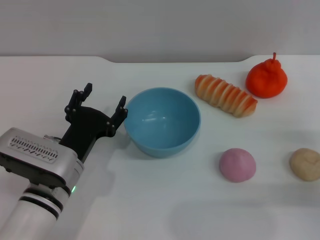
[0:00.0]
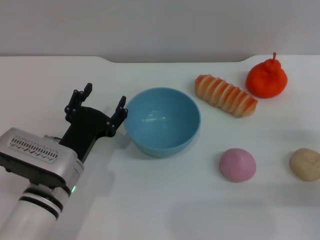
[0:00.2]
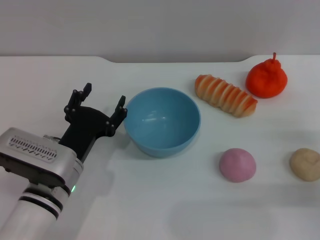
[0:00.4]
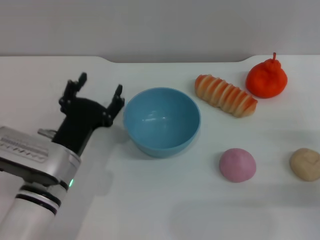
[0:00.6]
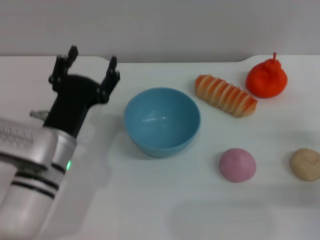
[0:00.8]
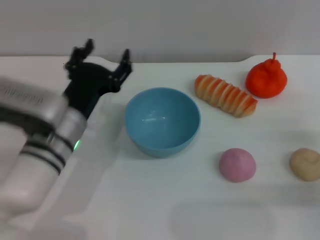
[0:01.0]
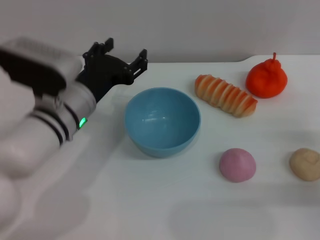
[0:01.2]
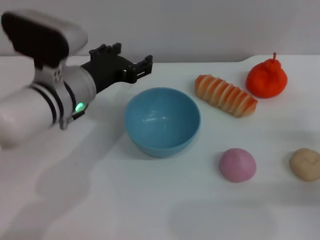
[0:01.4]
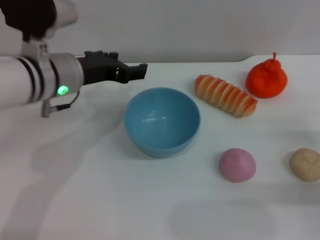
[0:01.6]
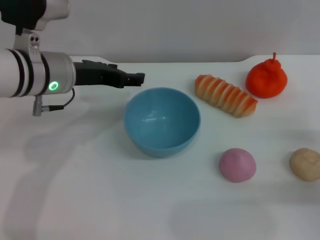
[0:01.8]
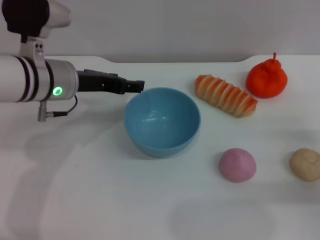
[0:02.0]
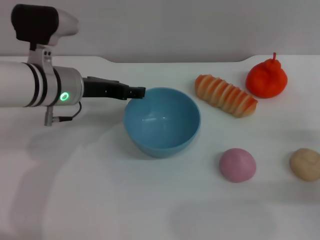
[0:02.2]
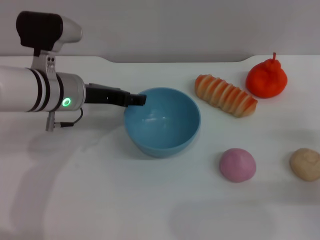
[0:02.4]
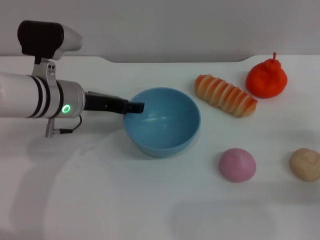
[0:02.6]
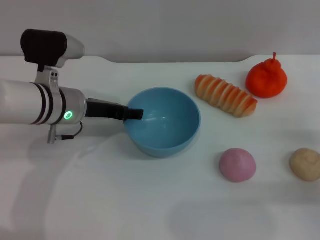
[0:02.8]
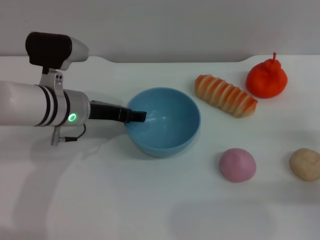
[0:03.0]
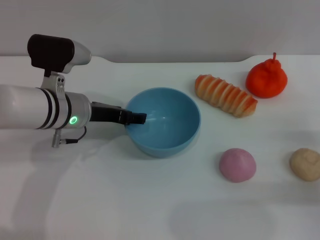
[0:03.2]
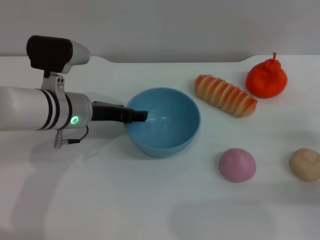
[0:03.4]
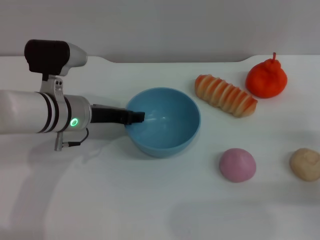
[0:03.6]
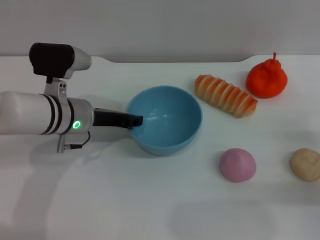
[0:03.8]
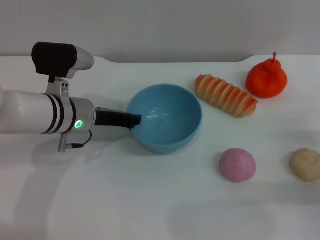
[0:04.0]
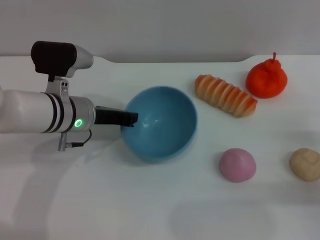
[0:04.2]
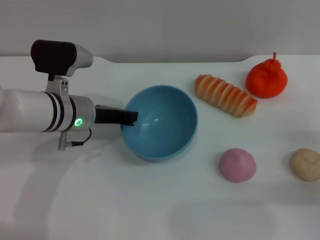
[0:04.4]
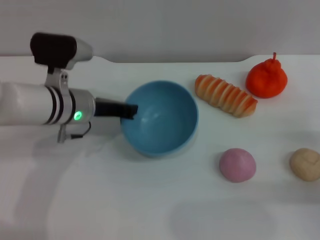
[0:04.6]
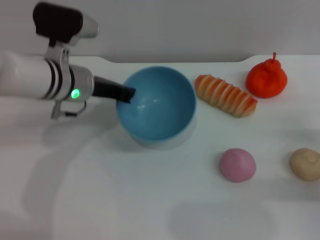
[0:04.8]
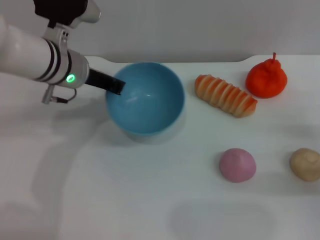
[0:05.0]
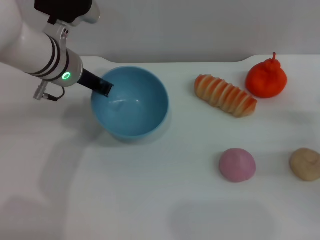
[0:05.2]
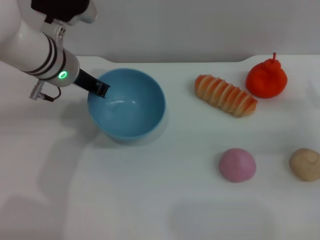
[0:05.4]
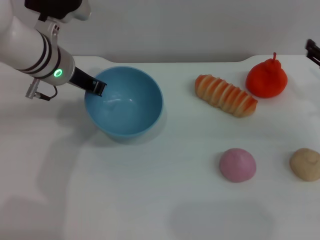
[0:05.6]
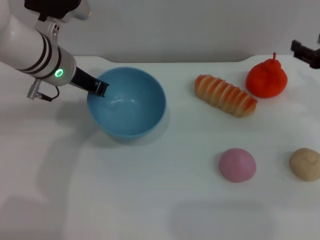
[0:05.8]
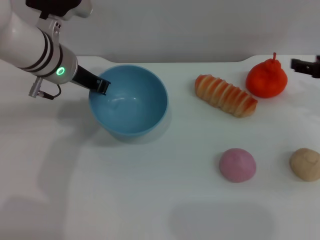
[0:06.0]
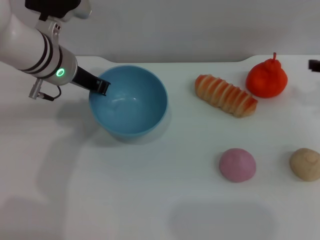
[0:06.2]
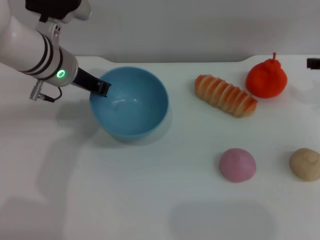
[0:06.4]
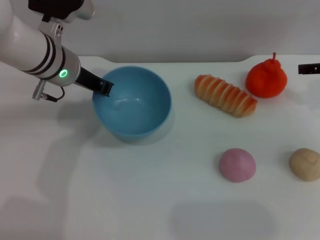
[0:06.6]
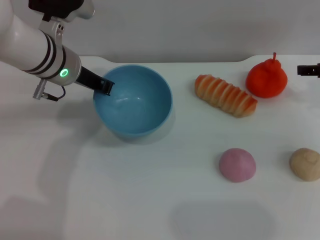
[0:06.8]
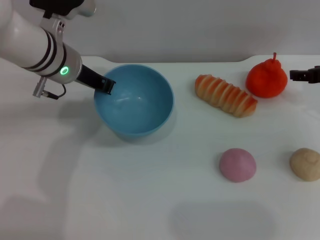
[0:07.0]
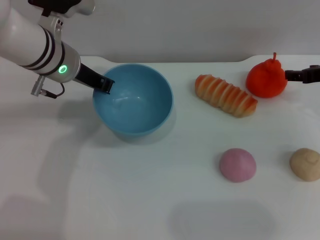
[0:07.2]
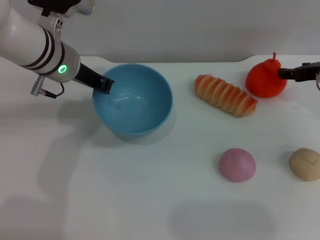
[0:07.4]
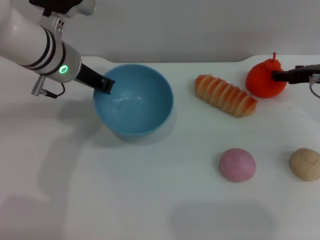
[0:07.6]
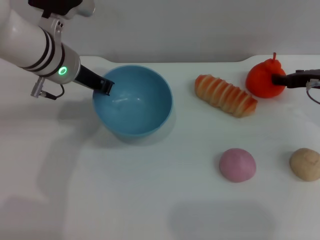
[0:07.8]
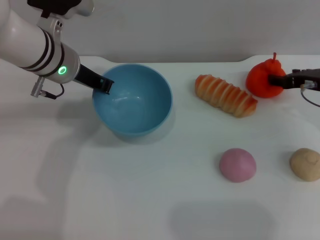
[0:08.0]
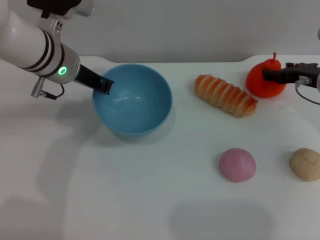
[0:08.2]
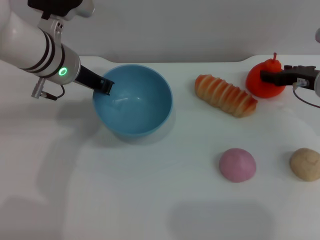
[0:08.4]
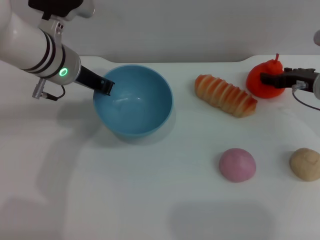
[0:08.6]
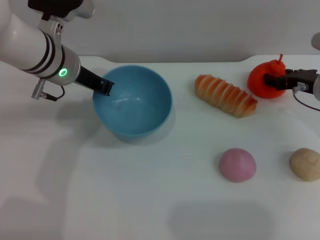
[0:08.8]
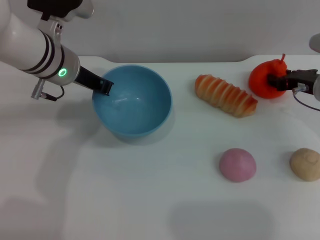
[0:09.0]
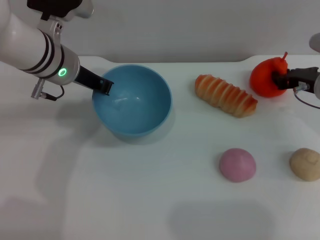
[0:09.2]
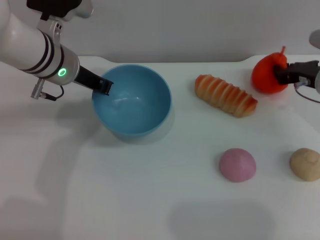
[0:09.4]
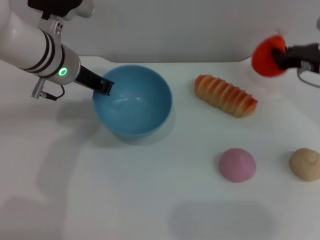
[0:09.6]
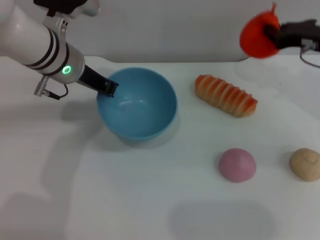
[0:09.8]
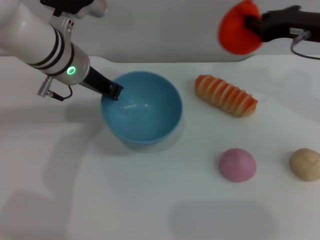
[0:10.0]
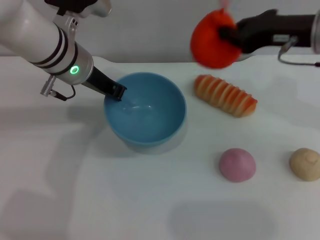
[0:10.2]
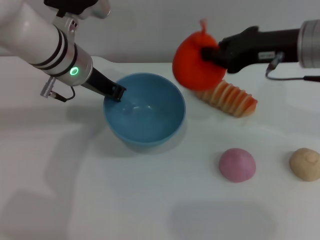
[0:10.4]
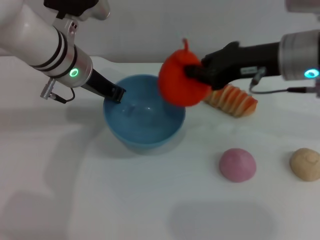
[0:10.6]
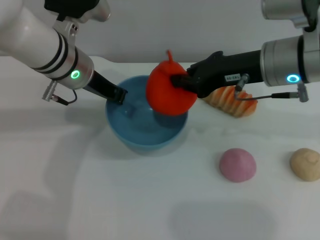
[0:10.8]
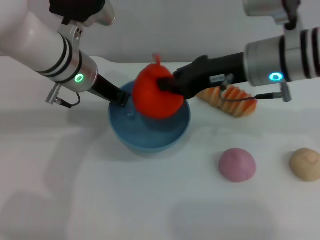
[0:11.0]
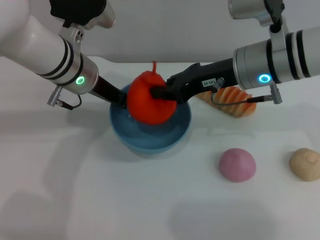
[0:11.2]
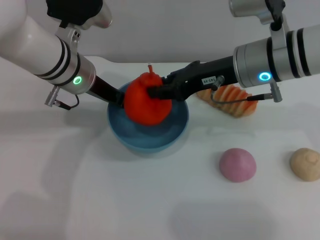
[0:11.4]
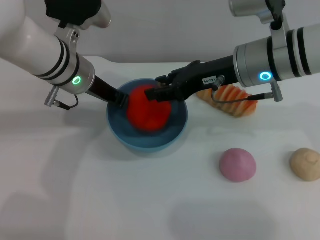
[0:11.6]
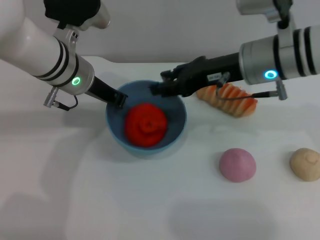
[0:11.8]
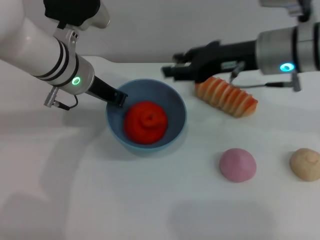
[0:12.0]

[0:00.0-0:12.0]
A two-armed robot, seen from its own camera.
Task of the whole recording: put the orange into the blue bowl and pour it out repeatedly.
Step, 0:00.0 to 0:06.0: Pick up the bowl with the left gripper.
Step, 0:06.2 to 0:09.6: Pick up the orange with the right gripper.
Step, 0:09.8 to 0:11.8: Place the orange into the bowl.
0:00.0 to 0:01.6: The left gripper is displaced upward and forward by approximately 15 cm.
0:01.6 to 0:03.0: The left gripper goes about 5 cm downward.
0:03.0 to 0:04.4: The left gripper closes its fingers.
0:04.4 to 0:06.0: The left gripper goes some 10 cm upward, while the right gripper heads forward and upward, covering approximately 15 cm.
0:06.0 to 0:07.6: The right gripper shifts by roughly 5 cm.
0:07.6 to 0:09.0: The grippers make only small movements.
0:09.0 to 0:10.4: The right gripper travels upward and to the left by approximately 15 cm, and closes its fingers.
0:10.4 to 0:12.0: The right gripper opens.

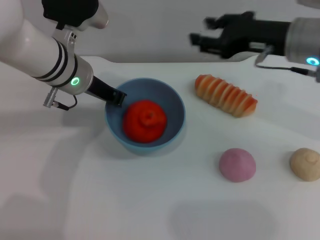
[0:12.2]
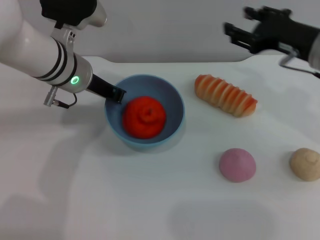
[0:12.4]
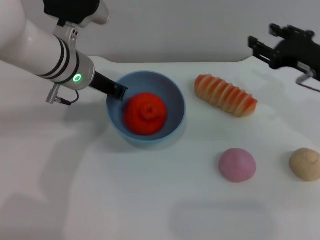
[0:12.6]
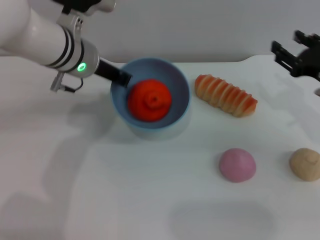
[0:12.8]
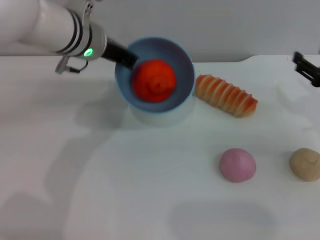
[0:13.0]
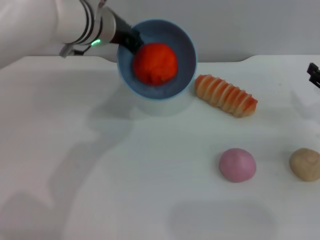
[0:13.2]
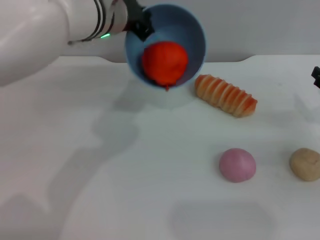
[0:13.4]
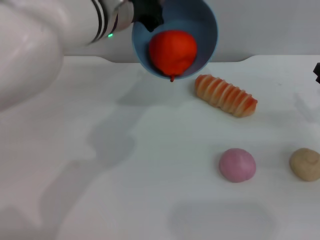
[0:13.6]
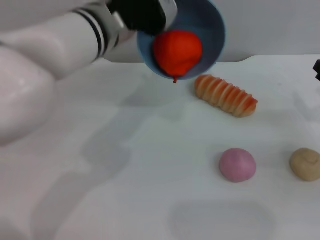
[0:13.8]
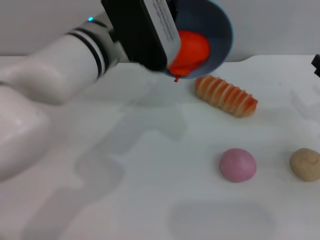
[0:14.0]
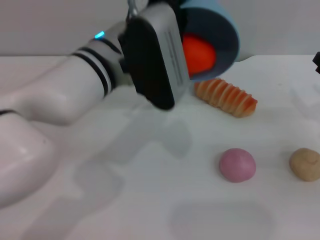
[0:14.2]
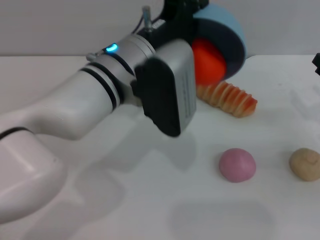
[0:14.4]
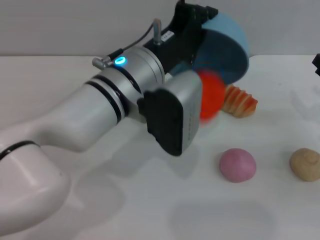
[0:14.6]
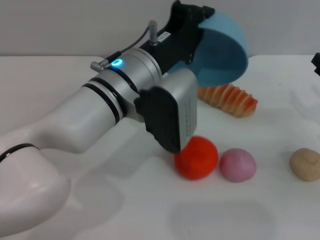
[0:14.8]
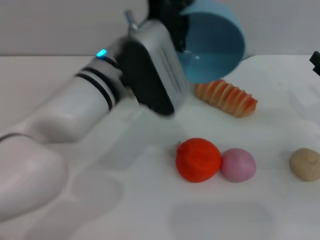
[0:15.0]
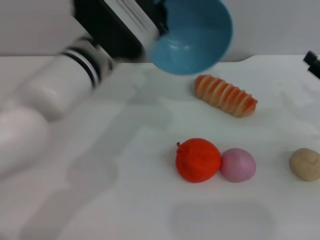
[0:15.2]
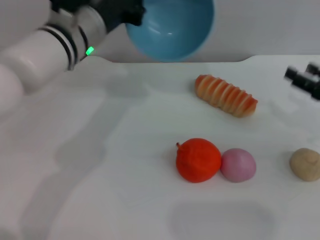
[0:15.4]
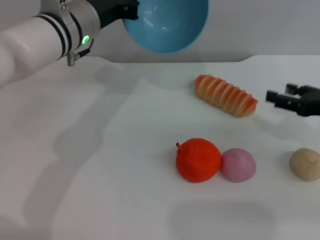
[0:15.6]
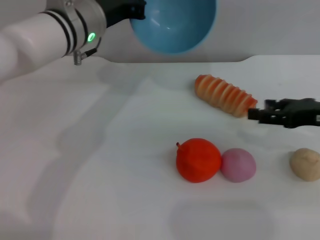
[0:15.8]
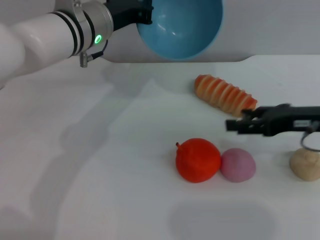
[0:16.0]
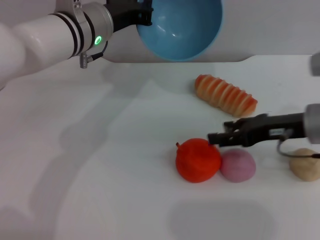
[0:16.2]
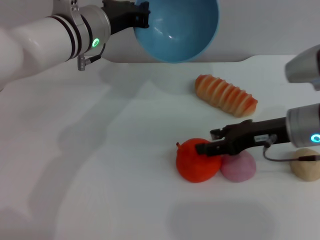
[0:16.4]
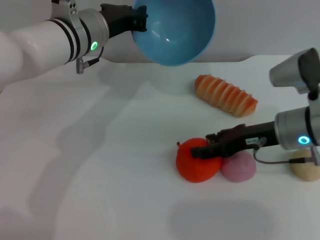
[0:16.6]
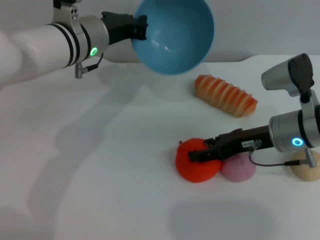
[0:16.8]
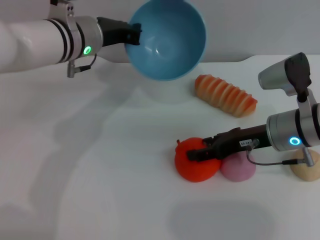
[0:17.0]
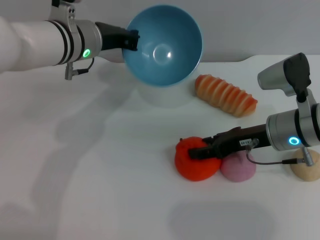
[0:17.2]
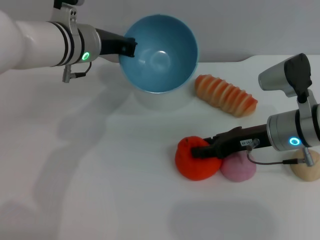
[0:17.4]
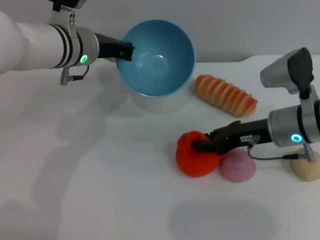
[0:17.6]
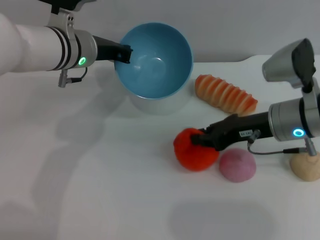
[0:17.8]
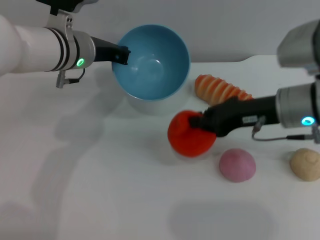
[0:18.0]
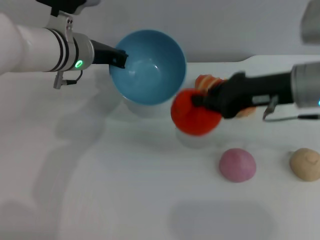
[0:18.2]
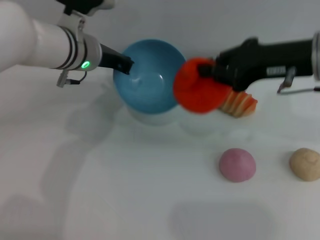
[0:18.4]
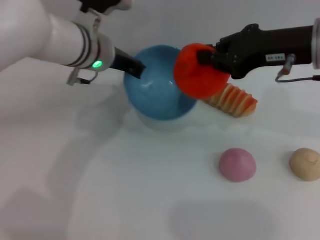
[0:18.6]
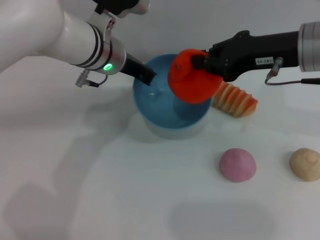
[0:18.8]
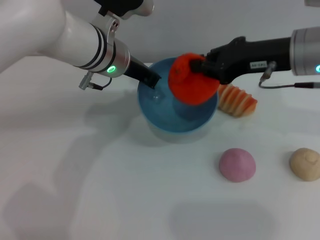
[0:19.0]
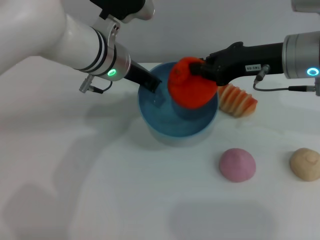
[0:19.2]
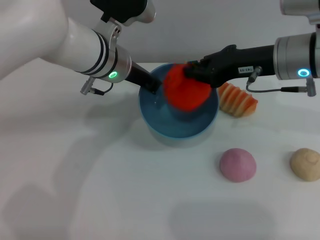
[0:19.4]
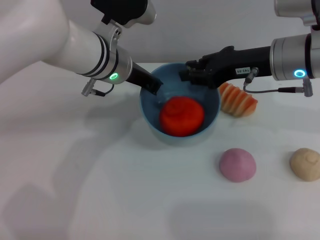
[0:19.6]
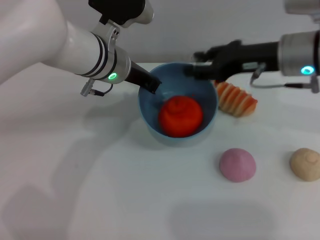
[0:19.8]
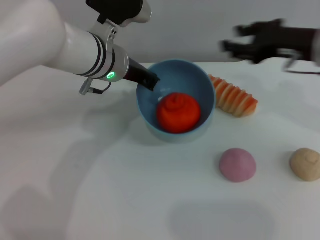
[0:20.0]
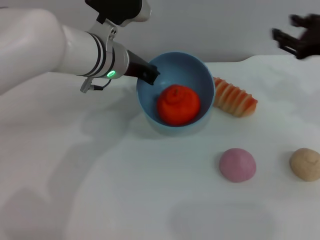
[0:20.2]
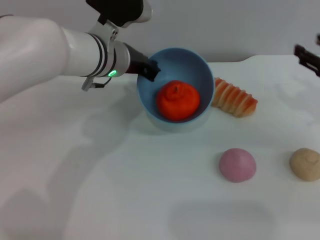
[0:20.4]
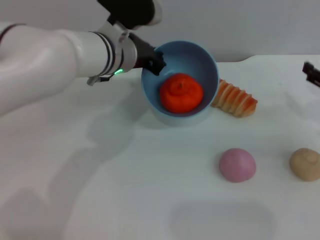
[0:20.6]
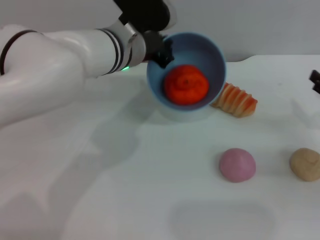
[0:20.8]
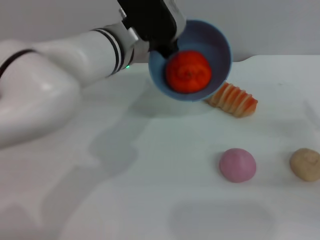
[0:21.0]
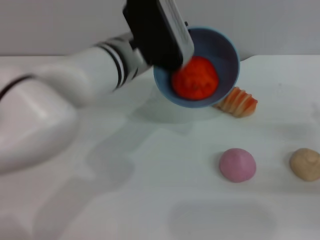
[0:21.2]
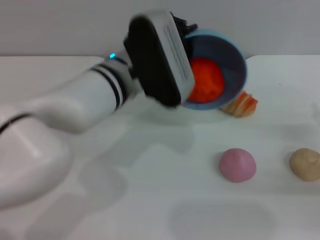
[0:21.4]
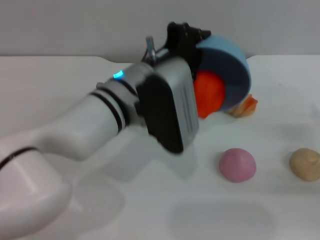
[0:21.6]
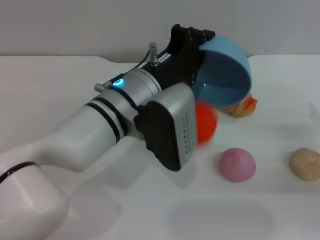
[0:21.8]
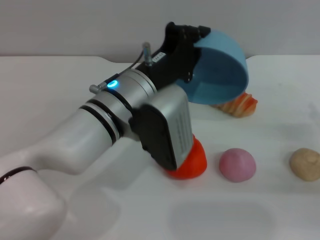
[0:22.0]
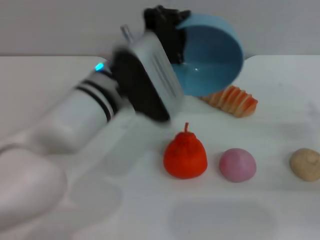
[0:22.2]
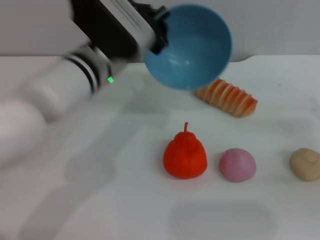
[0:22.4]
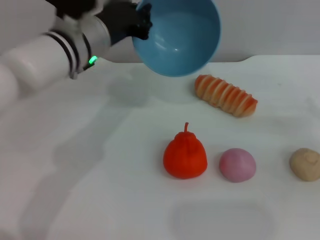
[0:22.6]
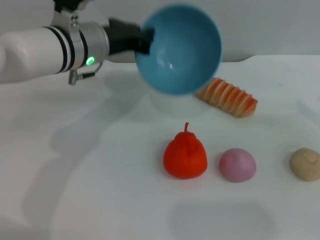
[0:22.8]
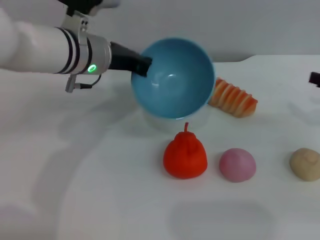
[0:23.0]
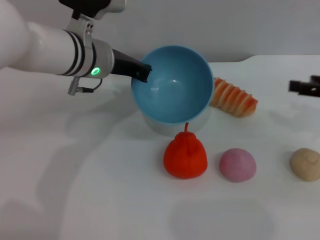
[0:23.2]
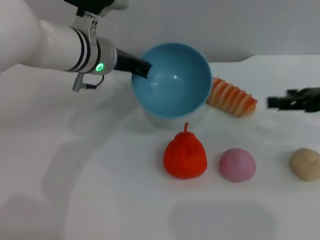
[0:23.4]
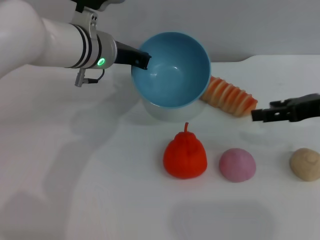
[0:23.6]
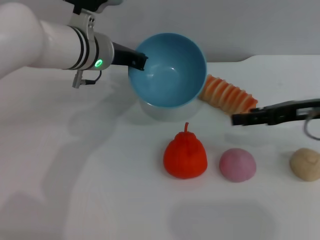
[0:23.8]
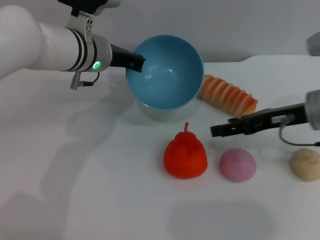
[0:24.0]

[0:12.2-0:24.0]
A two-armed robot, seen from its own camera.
Task of the whole recording: put the orange into the blue bowl and pour it out repeatedly.
Step, 0:12.2 to 0:15.4: Pour the orange out of the bowl.
Step, 0:15.6 to 0:18.0: Pick up the orange with the right gripper.
Step, 0:18.2 to 0:20.0: Place the orange into the bowl.
Step, 0:20.2 to 0:22.0: Pour the orange out of the bowl.
0:12.2 to 0:13.6: The left gripper travels upward and to the right by roughly 10 cm; the right gripper is displaced to the right, downward and backward by approximately 20 cm.
0:15.2 to 0:16.6: The left gripper travels forward by roughly 5 cm, while the right gripper goes about 15 cm to the left.
0:16.6 to 0:18.2: The right gripper goes approximately 10 cm upward, and closes up.
0:18.2 to 0:19.6: The left gripper goes about 5 cm to the right.
0:19.6 to 0:21.0: The right gripper heads to the right, downward and backward, covering about 25 cm, and opens.
0:21.0 to 0:22.6: The left gripper goes about 5 cm to the left, and travels backward and back again, some 10 cm each way.
0:22.6 to 0:24.0: The right gripper heads to the left and forward, covering some 15 cm.
